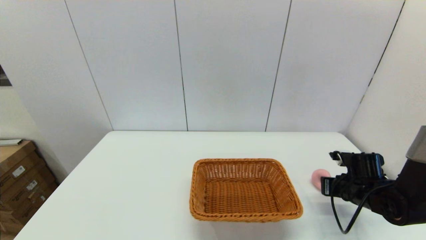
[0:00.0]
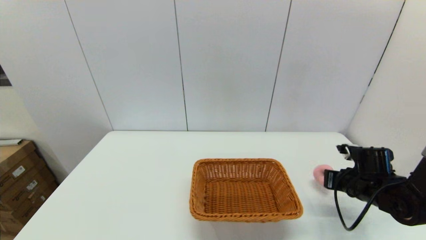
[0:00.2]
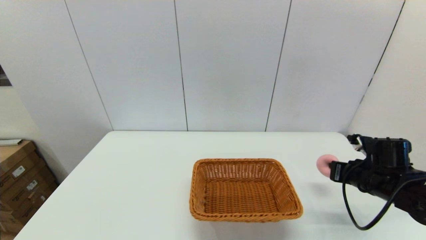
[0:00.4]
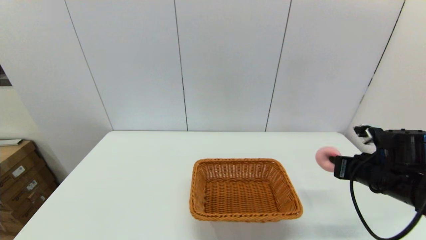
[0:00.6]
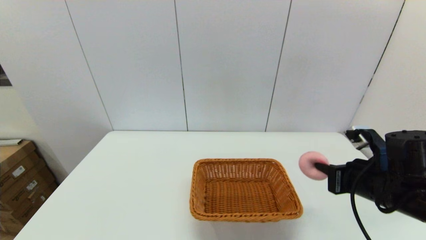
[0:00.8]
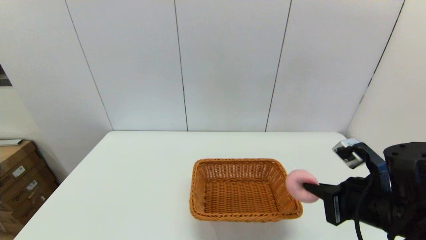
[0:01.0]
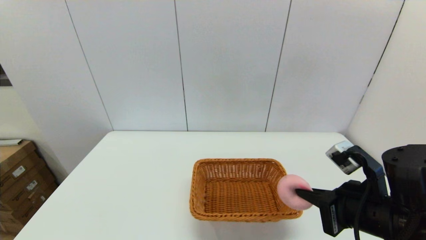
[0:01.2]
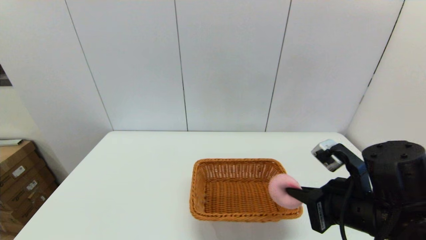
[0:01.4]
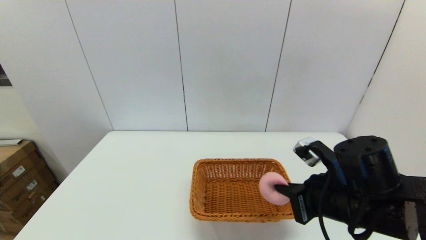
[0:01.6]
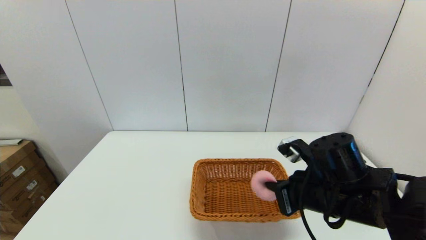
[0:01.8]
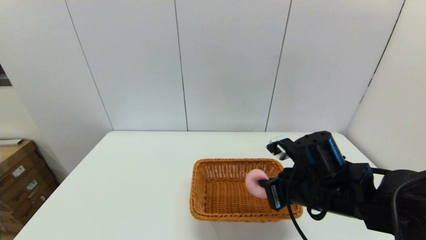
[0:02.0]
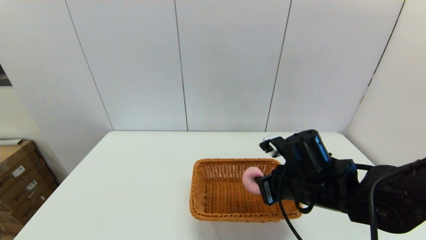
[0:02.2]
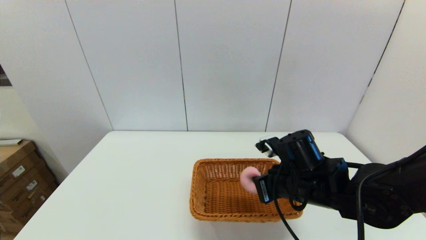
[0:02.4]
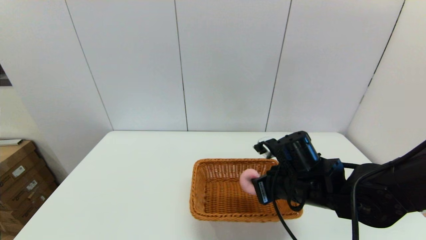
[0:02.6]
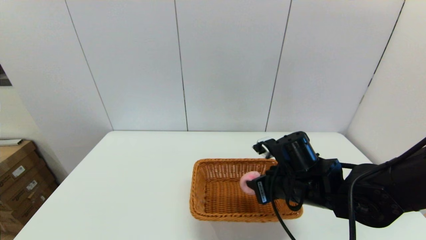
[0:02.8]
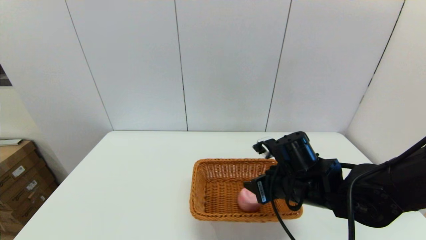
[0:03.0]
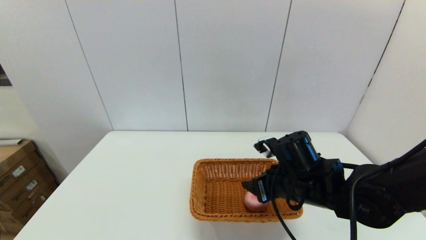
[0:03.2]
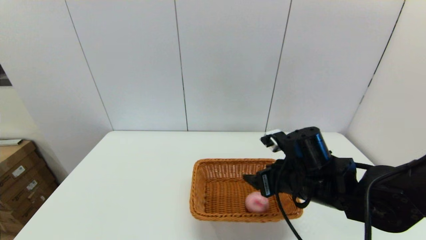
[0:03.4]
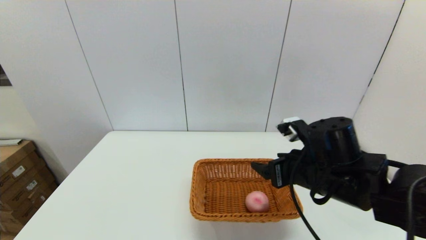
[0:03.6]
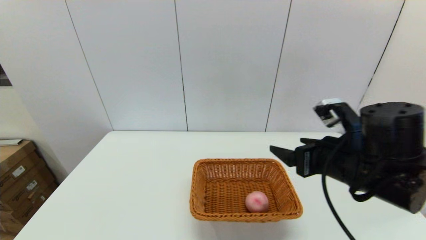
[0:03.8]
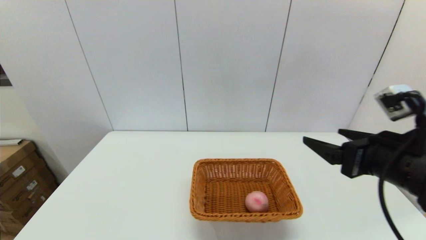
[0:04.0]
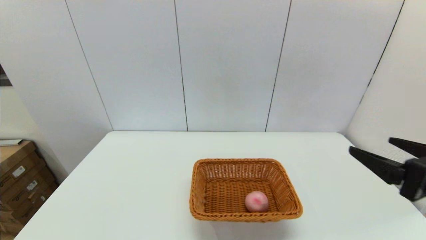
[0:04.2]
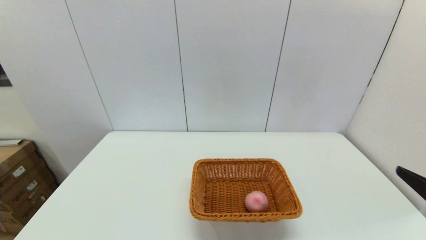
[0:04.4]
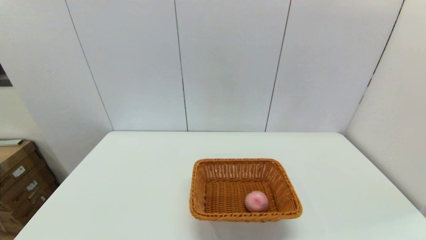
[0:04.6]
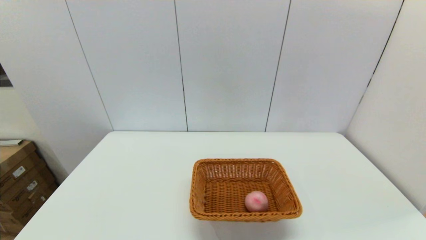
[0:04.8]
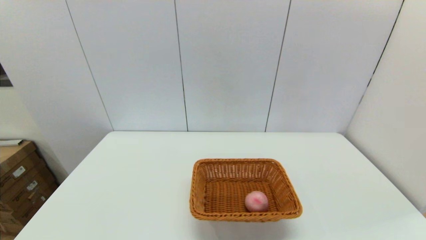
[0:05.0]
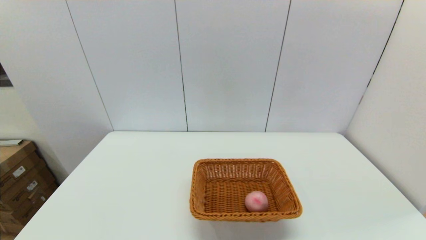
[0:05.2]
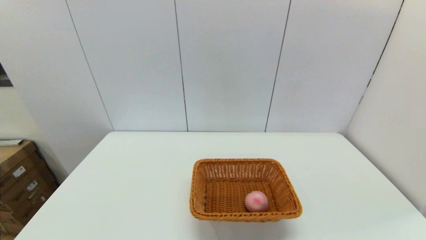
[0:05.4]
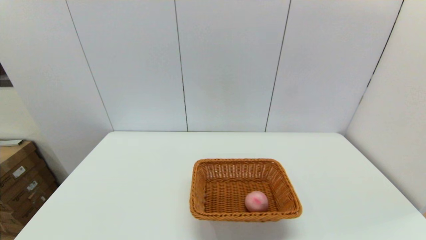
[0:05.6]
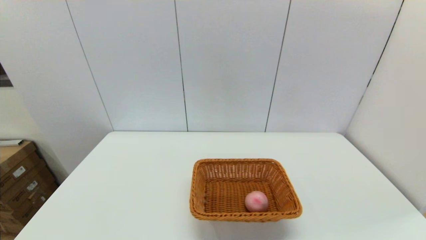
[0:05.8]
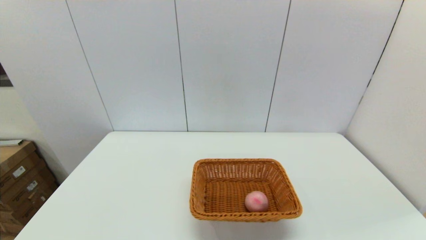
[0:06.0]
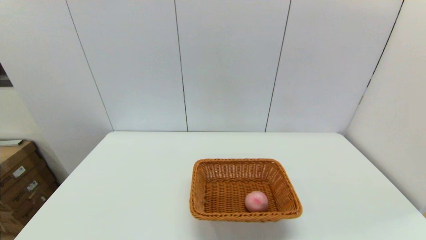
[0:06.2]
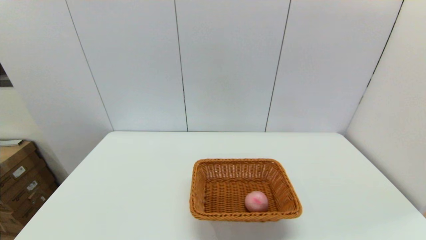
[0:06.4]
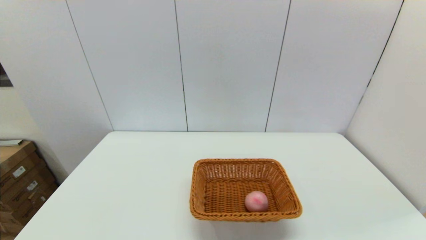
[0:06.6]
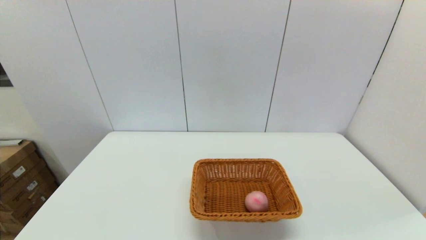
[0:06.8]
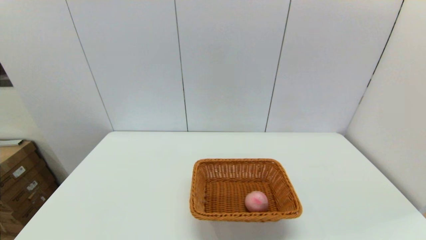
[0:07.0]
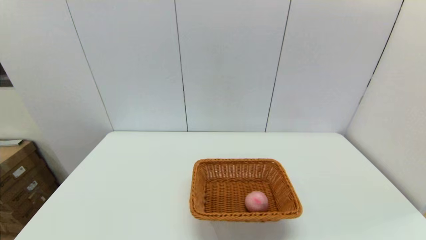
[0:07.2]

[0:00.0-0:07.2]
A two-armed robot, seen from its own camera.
Step, 0:00.0 to 0:03.0: Place the peach into the light basket with the right gripper.
0:00.0 to 0:01.4: The right gripper heads upward, to the left and backward, covering roughly 25 cm.
0:01.4 to 0:02.8: The right gripper shifts some 10 cm forward and to the left, and opens its fingers.
0:02.8 to 0:04.4: The right gripper goes some 25 cm backward, to the right and upward, and opens its fingers.
